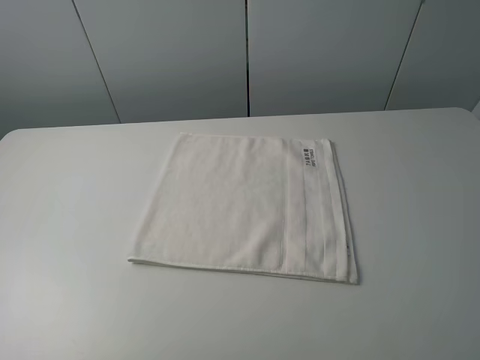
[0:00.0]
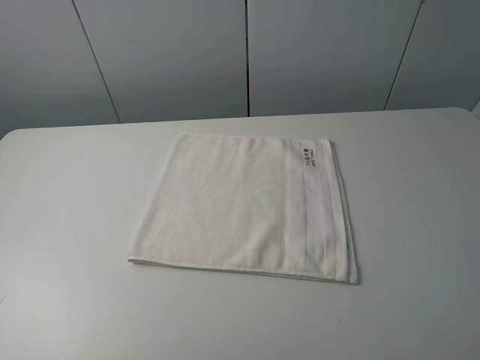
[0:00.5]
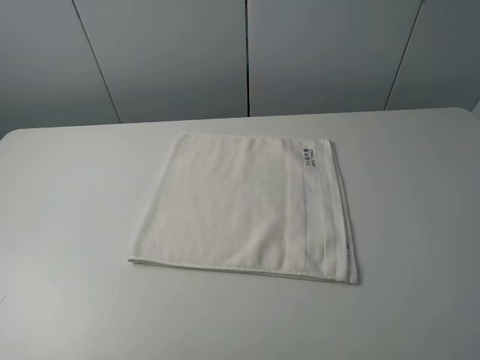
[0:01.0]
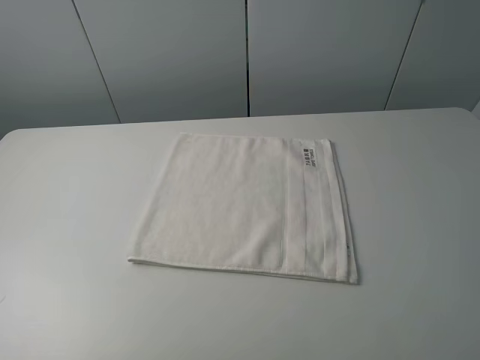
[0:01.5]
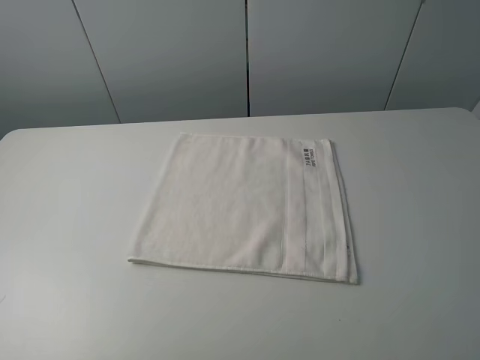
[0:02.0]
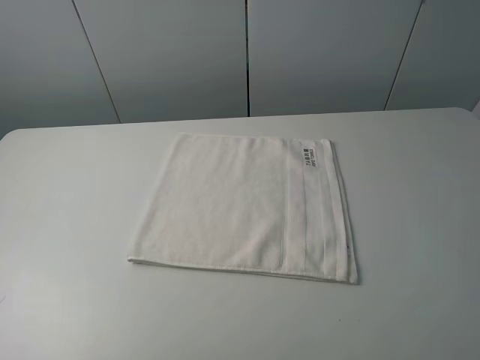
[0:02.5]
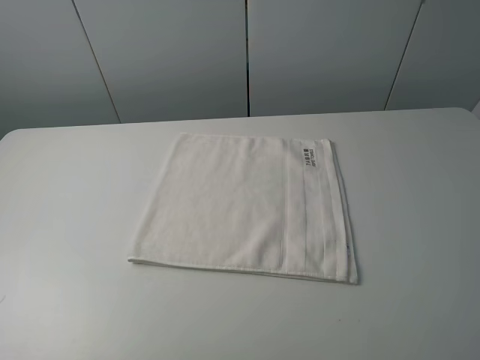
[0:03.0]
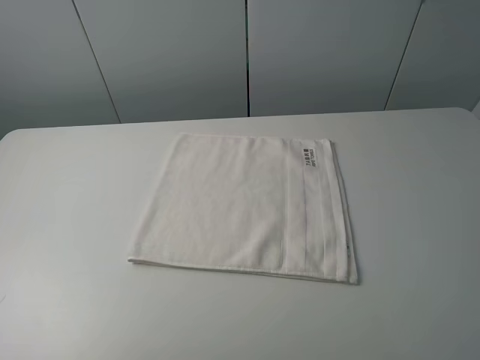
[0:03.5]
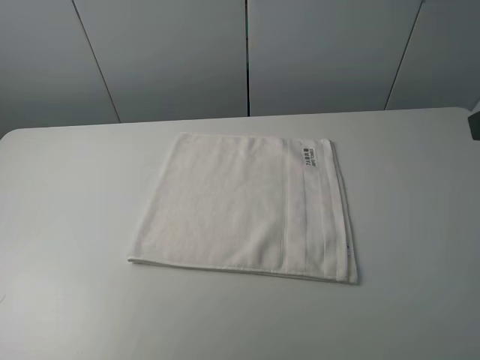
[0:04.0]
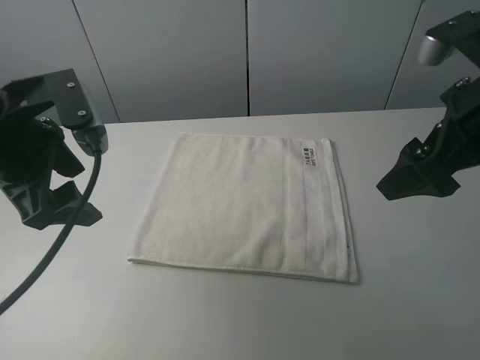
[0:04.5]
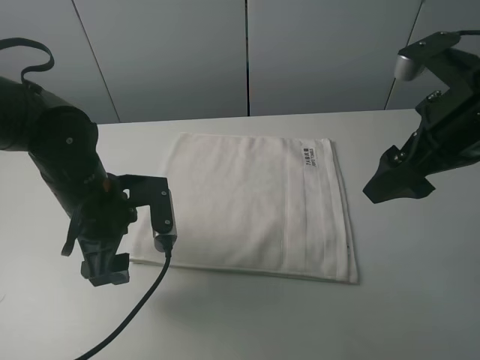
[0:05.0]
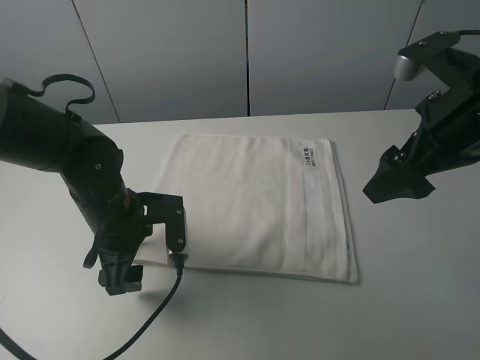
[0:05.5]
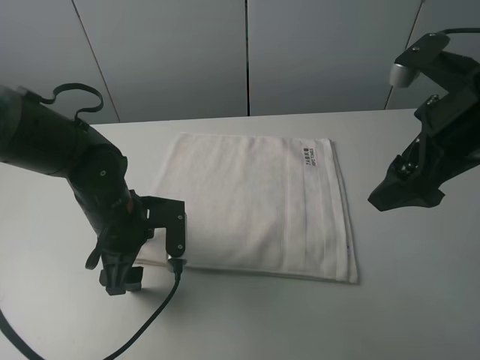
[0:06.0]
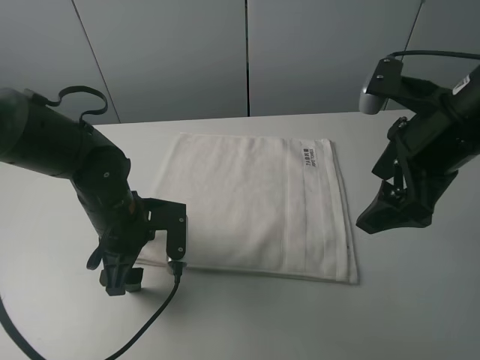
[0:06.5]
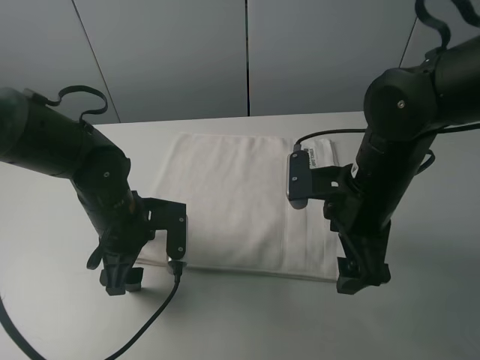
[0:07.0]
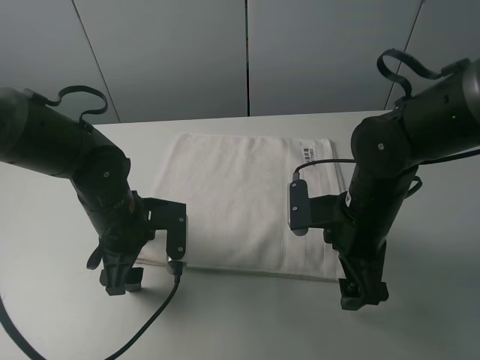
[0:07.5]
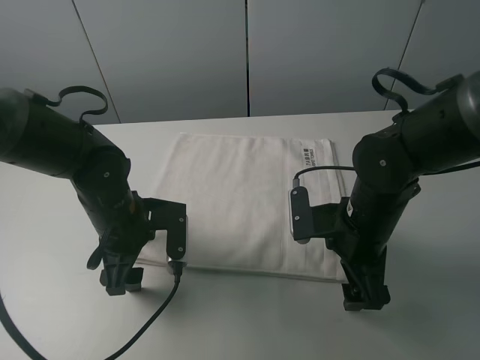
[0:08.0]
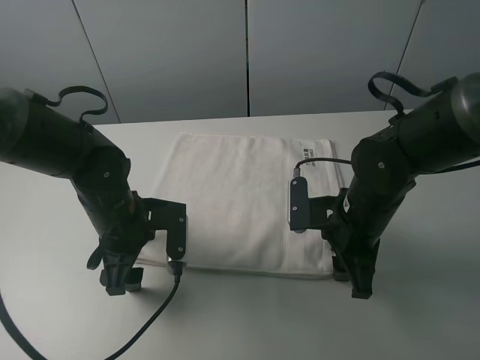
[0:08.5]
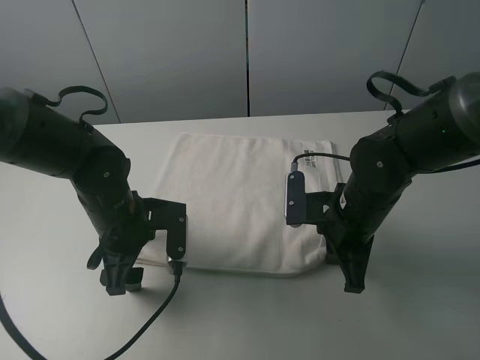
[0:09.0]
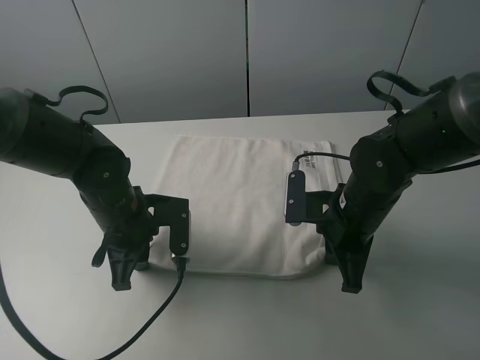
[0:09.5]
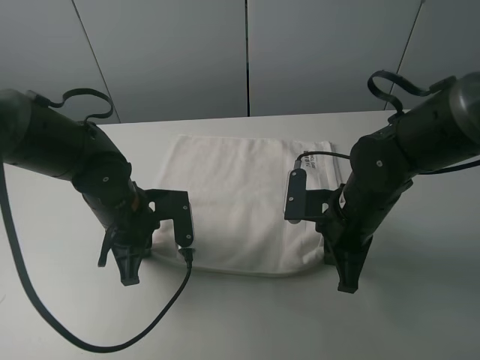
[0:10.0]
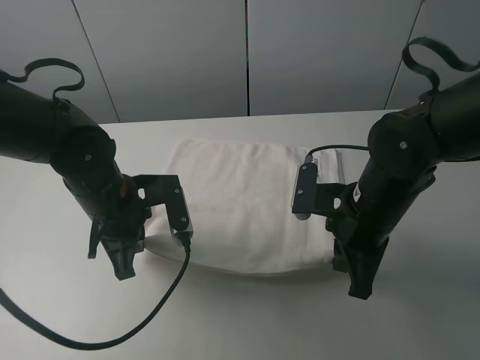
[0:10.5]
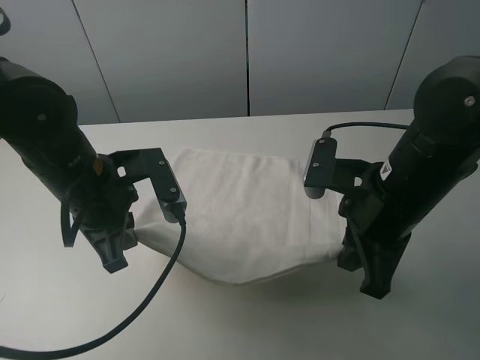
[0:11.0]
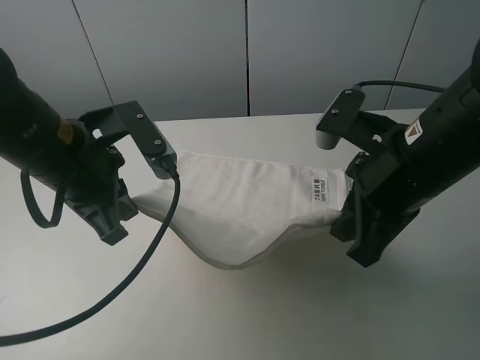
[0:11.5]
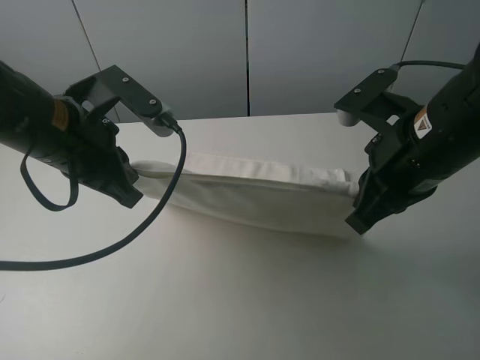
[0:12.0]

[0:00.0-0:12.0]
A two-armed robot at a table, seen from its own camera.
Task of the whole recording: fold the towels on the table.
Step, 0:00.0 to 0:09.5: Grasp the white towel with the right gripper.
0:00.0 to 0:02.0: Neither gripper changes place.
0:04.0 to 0:06.0: The right gripper heads forward, downward and to the left, covering approximately 10 cm; the left gripper moves downward, to the right and forward, roughly 30 cm.
0:06.0 to 0:08.0: The right gripper heads downward and to the left, covering about 15 cm.
0:08.0 to 0:10.0: The right gripper closes up. The left gripper closes its fingers.
0:10.0 to 0:12.0: Both grippers move upward, approximately 15 cm.

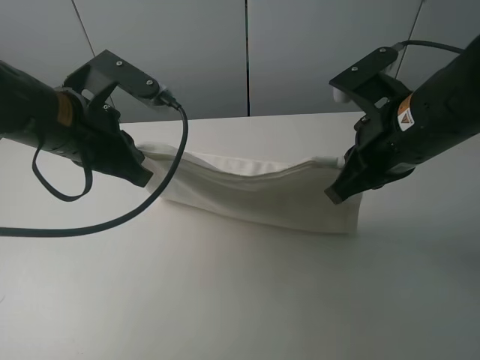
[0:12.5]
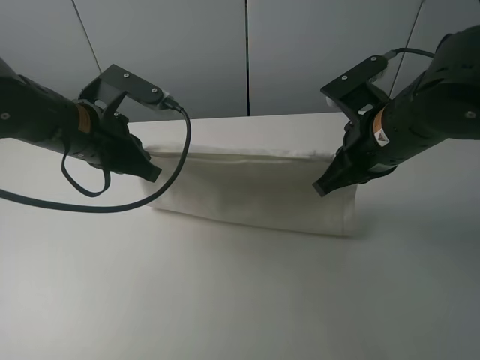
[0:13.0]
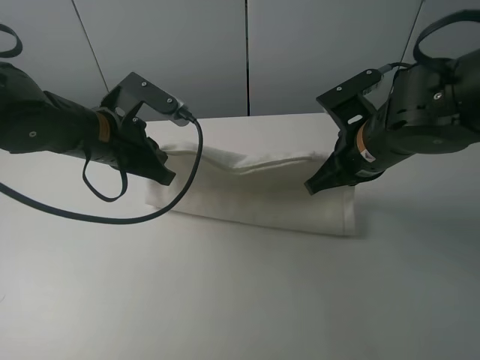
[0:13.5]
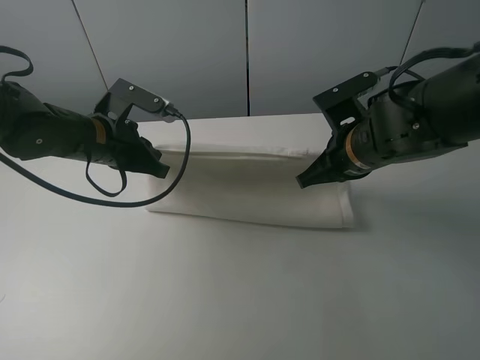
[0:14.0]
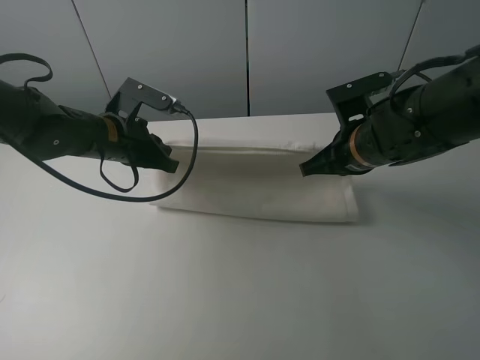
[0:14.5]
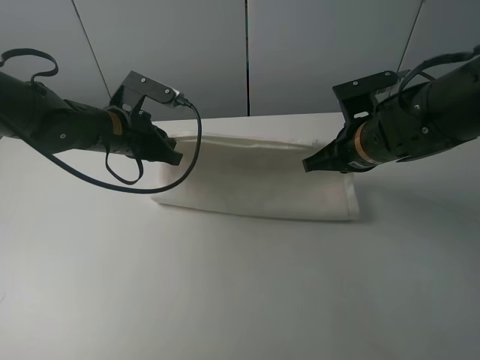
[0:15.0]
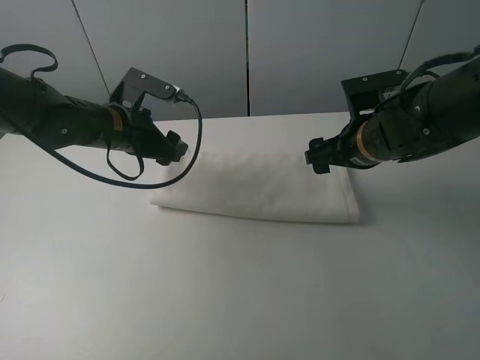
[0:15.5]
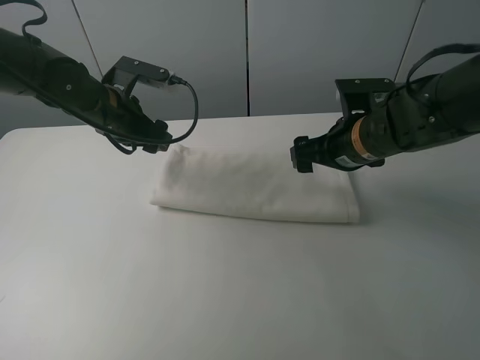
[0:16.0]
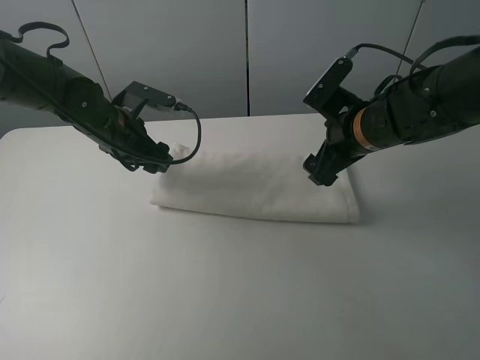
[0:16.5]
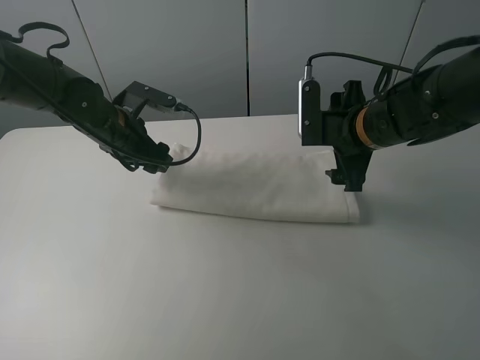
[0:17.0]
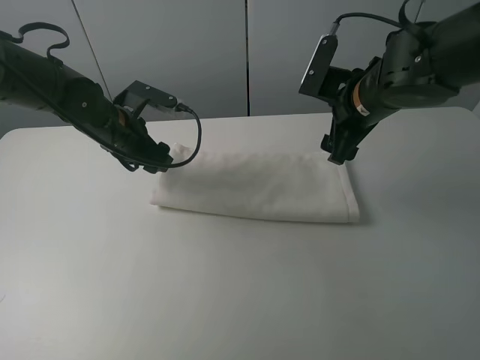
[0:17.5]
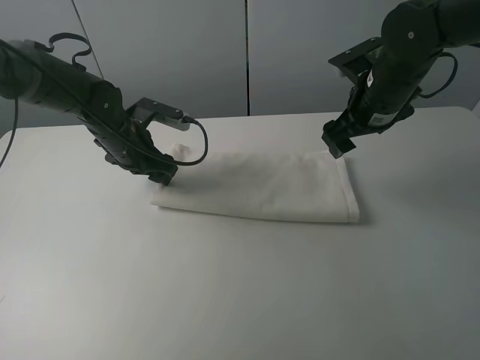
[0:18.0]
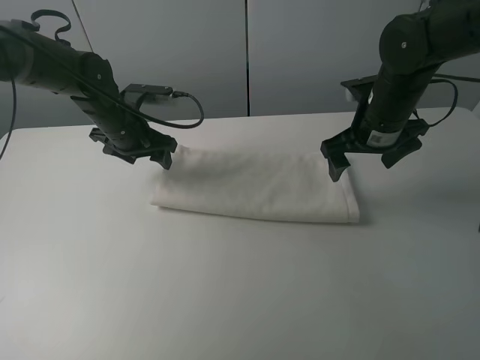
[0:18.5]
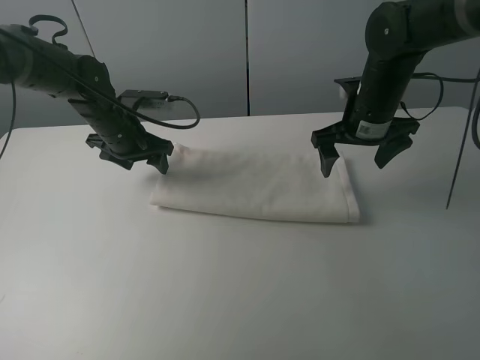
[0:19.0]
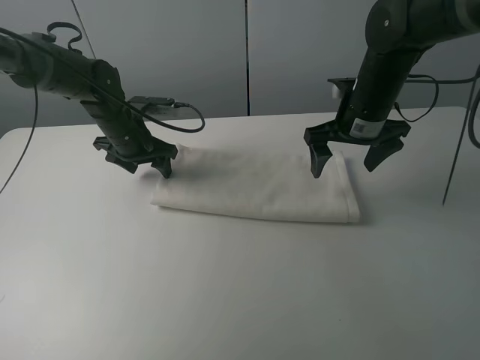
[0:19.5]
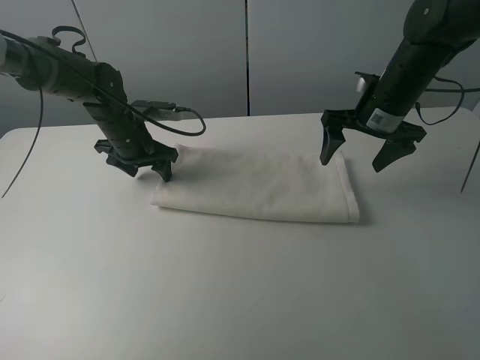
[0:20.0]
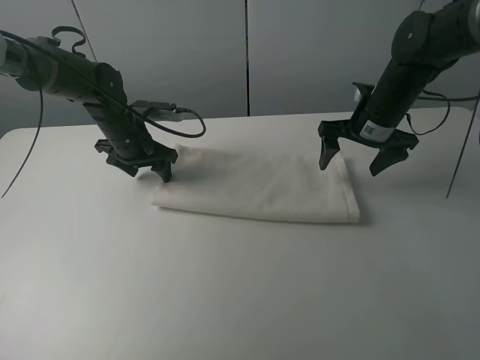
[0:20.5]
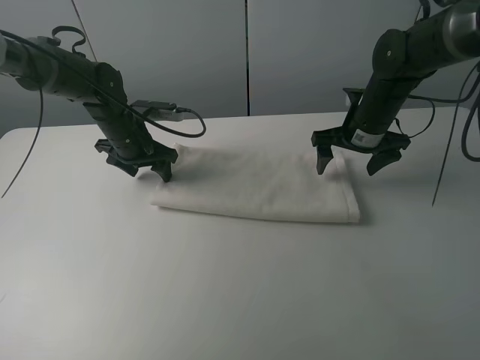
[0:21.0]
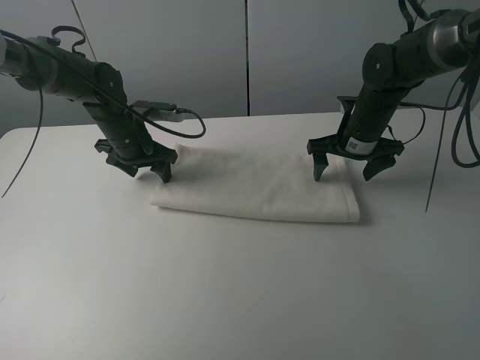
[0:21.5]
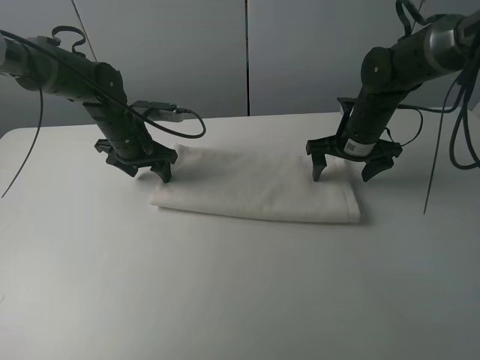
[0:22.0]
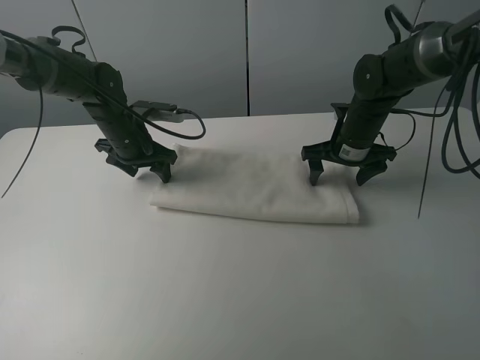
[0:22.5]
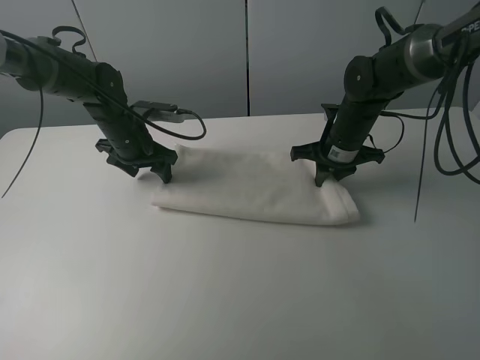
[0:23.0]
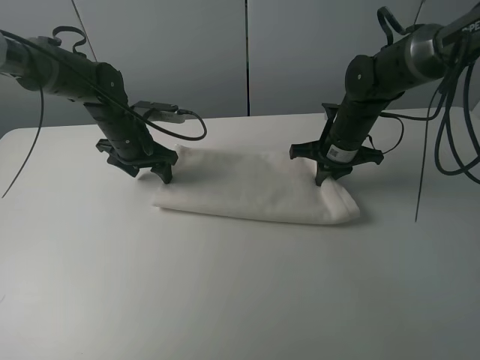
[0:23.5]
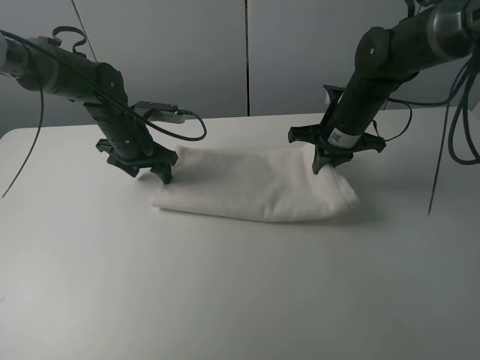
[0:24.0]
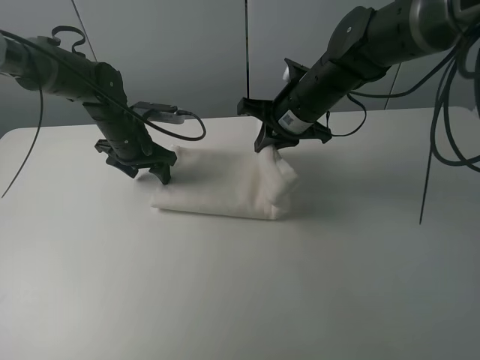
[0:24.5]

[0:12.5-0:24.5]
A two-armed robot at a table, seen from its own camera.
Task of the whole recording: fold the towels on the table.
Step, 0:12.5 to 0:15.0: Fold the white towel upwards with the right gripper.
Step, 0:16.0 to 0:19.5: Press on the white towel with the left gripper.
0:12.5 to 0:14.5: The right gripper heads downward and forward, covering some 10 cm. The left gripper travels forward and downward by roughly 10 cm.
0:14.5 to 0:16.5: The left gripper opens. Meanwhile the right gripper opens up.
0:20.5 to 0:22.5: The right gripper ends up approximately 5 cm from where it was.
0:22.5 to 0:24.5: The right gripper travels to the left and upward by roughly 10 cm, and closes its fingers.

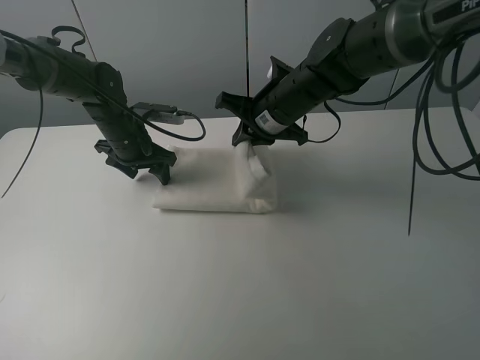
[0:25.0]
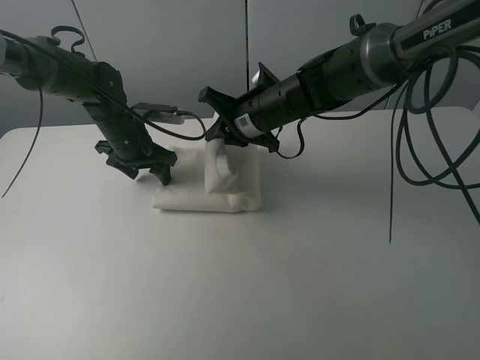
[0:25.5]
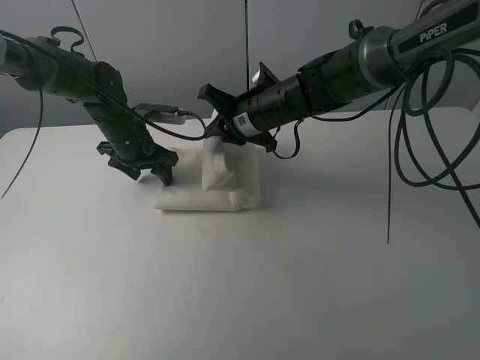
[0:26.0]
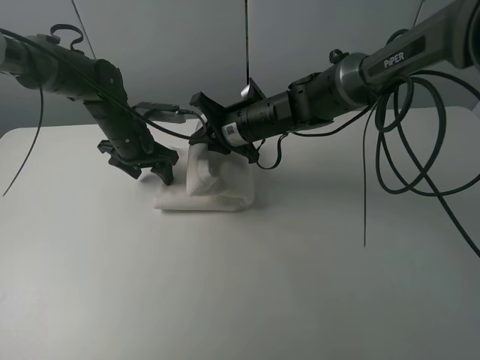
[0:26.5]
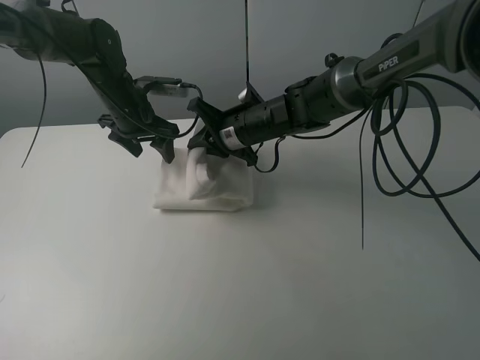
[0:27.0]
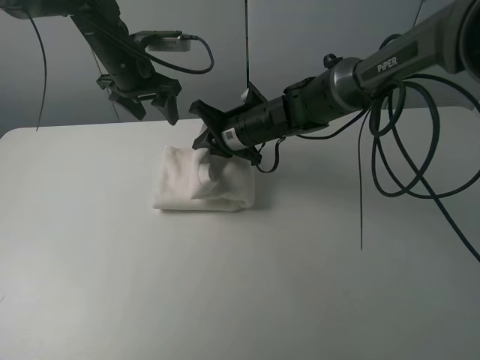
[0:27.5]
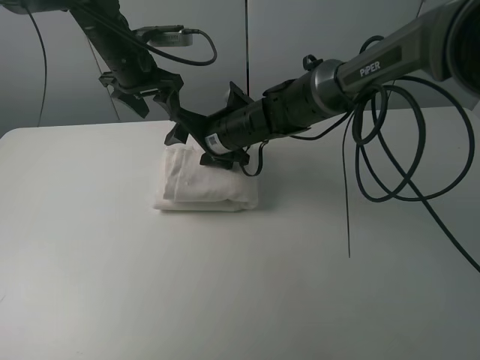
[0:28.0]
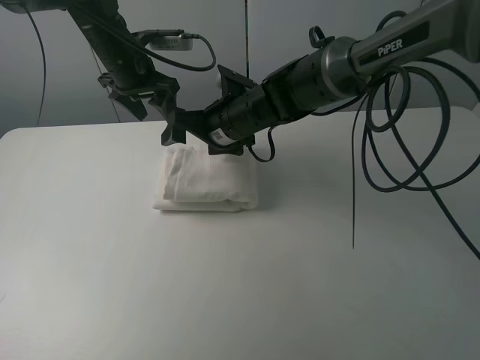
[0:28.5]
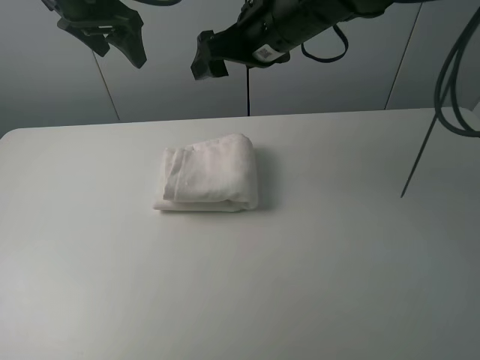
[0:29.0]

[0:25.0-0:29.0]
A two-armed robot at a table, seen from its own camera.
Task of the whole recording: fold the towels on the table.
Step, 0:25.0 to 0:28.0: Fold the white towel from right to left with right gripper.
0:25.0 to 0:27.0: The right gripper changes place by some 5 cm, while the left gripper shifts by about 5 cm.
0:27.0 to 0:29.0: Both grippers travel together upward, approximately 20 cm. The right gripper opens.
